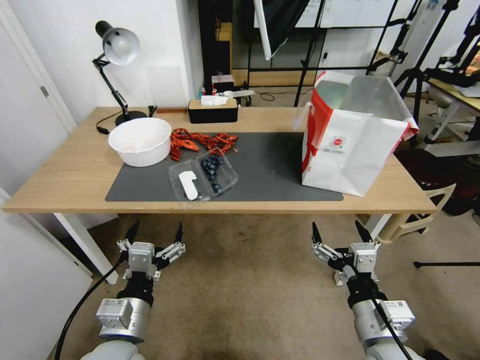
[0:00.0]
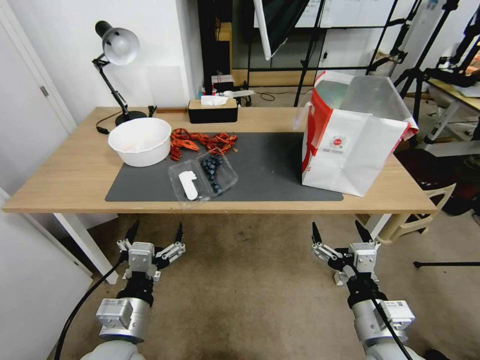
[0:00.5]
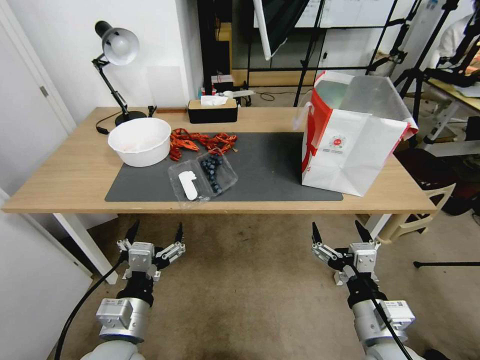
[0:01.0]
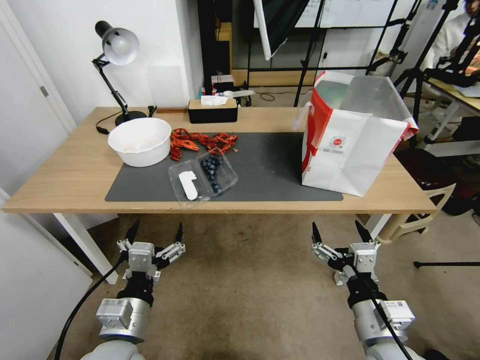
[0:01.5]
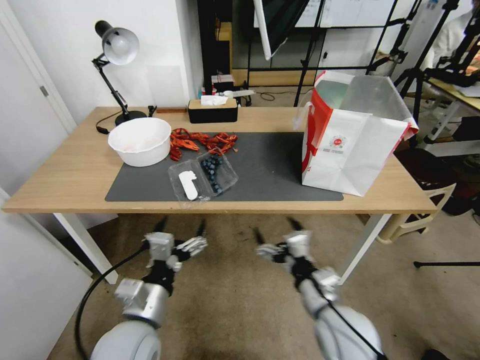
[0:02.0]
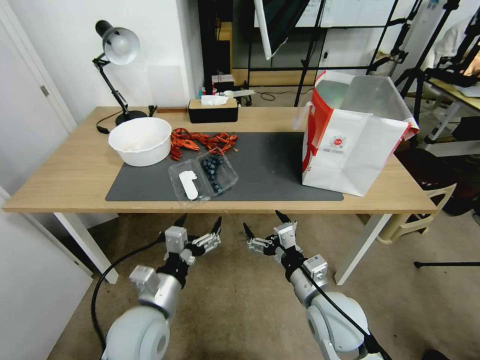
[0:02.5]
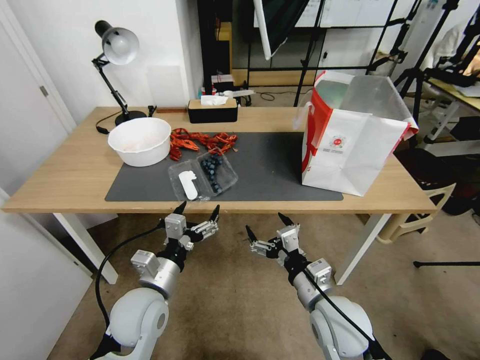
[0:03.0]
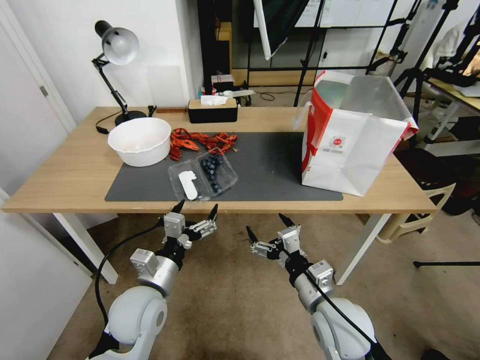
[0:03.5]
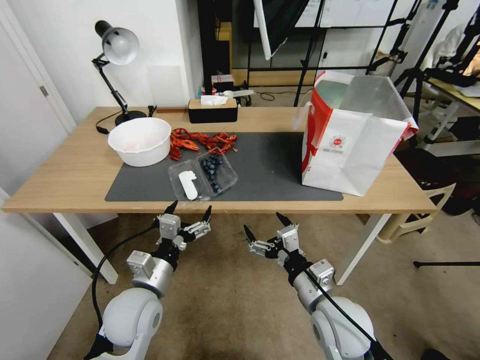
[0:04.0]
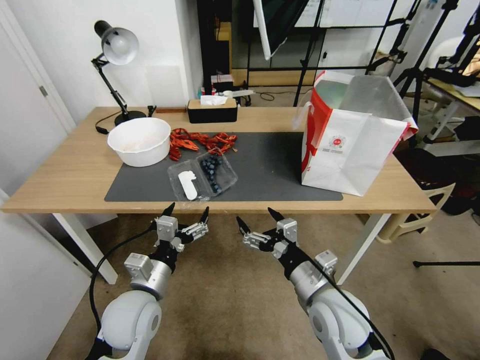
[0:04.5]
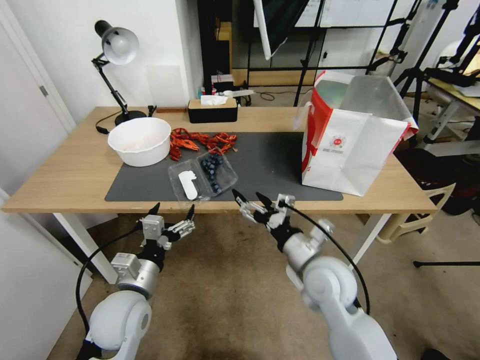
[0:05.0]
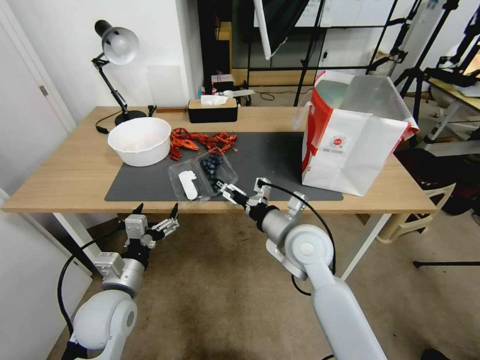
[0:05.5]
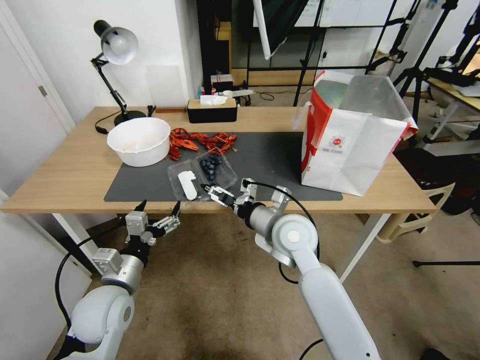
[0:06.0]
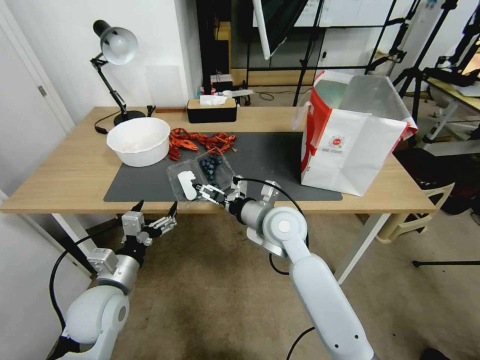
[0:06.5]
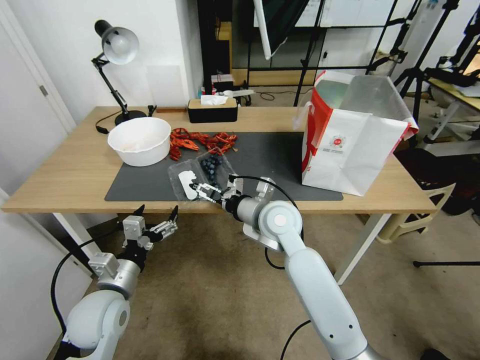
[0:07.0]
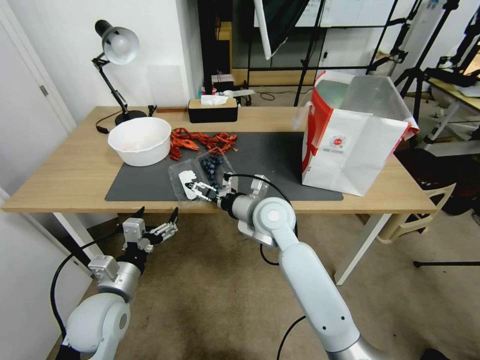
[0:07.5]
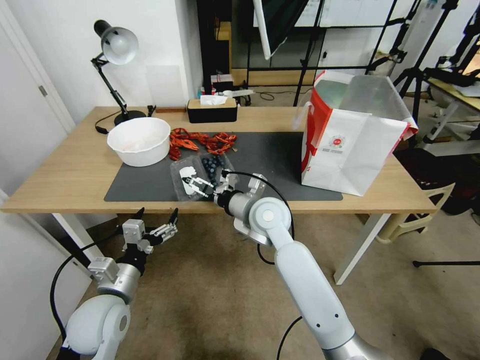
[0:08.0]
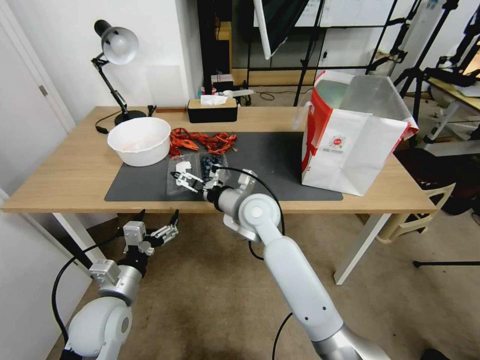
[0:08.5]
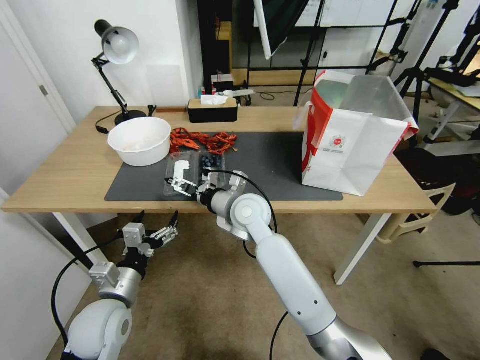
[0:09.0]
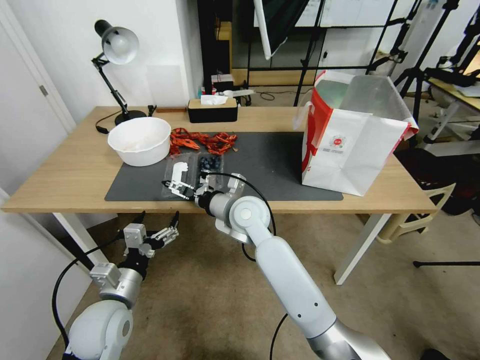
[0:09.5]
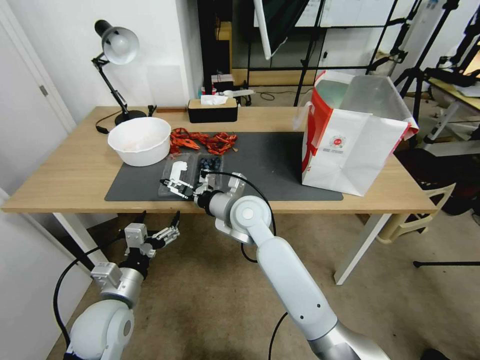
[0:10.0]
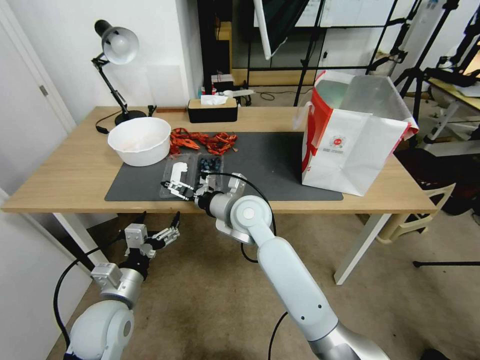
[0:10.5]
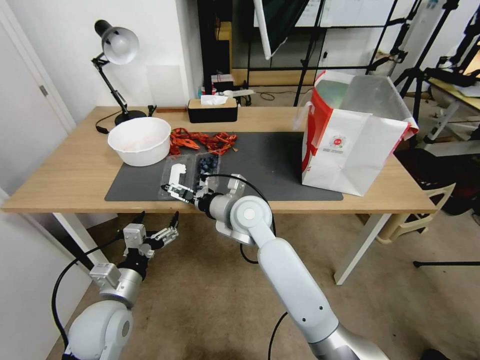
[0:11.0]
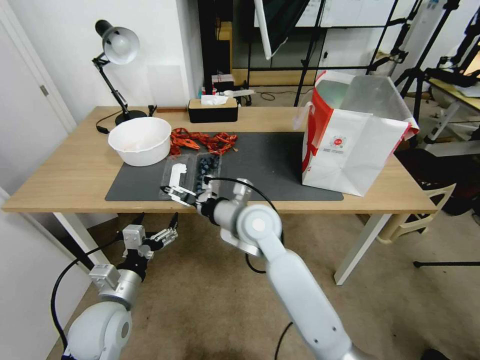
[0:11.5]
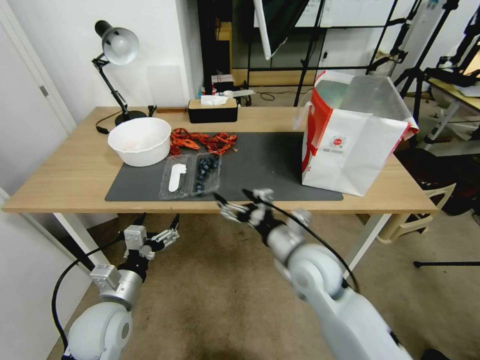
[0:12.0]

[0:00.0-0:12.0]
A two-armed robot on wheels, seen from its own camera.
Task of the whole recording: Close the takeout container lid, then place the container into the takeout bag.
0:02.0 to 0:04.0: The left gripper heads forward, covering approximately 5 cm.
0:04.0 to 0:06.0: The right gripper is displaced forward, to the left and upward by roughly 20 cm; the left gripper travels to the left by some 5 cm.
0:06.0 to 0:08.0: The right gripper moves some 5 cm.
0:08.0 to 0:10.0: The grippers move only a little.
0:10.0 to 0:12.0: The right gripper shifts about 20 cm to the right and backward.

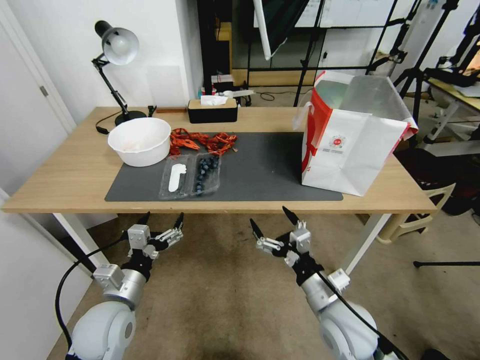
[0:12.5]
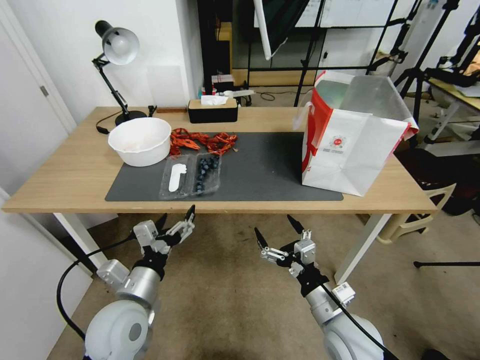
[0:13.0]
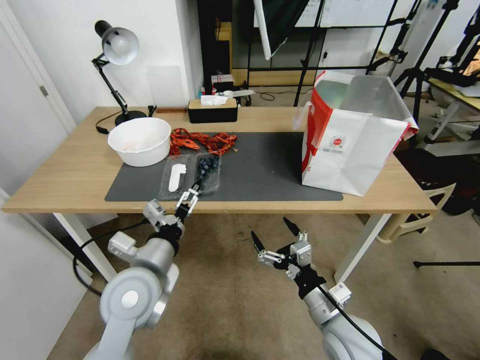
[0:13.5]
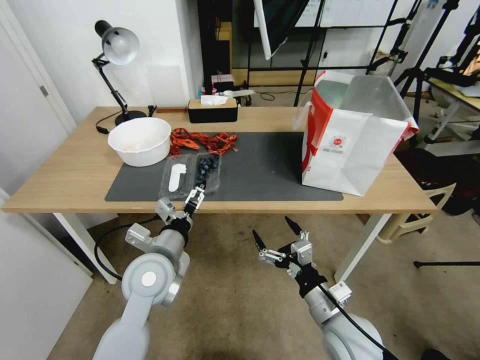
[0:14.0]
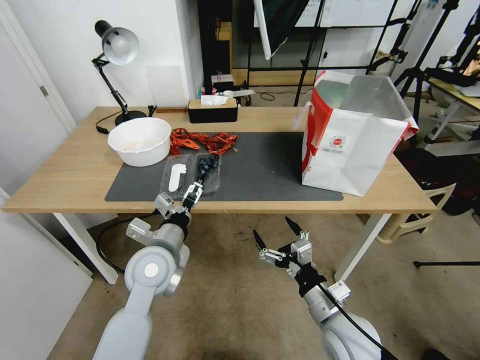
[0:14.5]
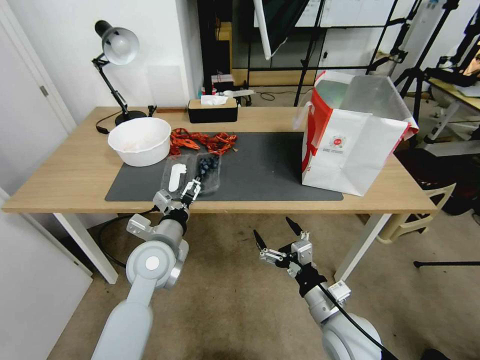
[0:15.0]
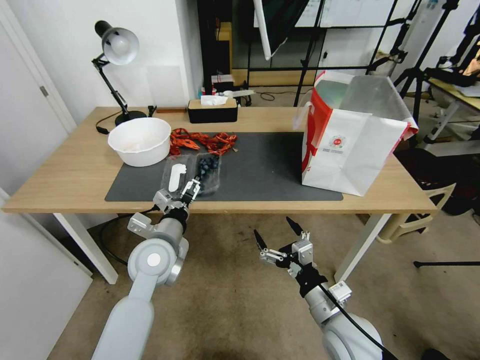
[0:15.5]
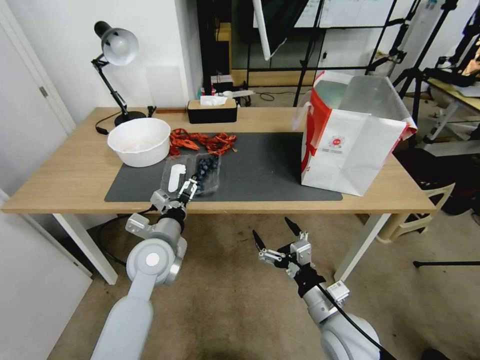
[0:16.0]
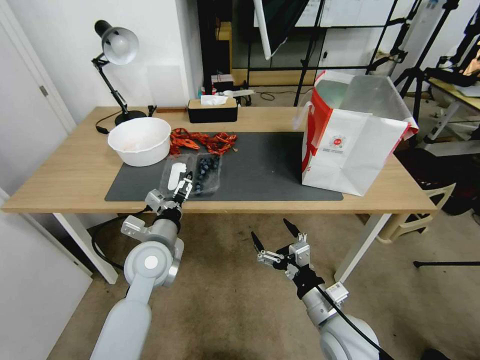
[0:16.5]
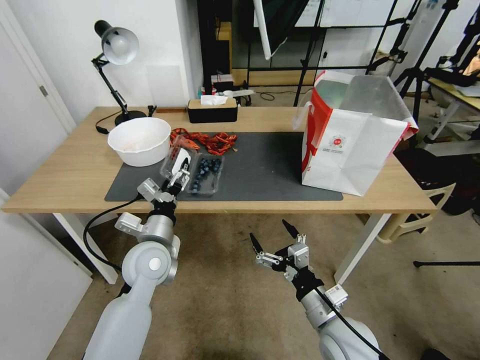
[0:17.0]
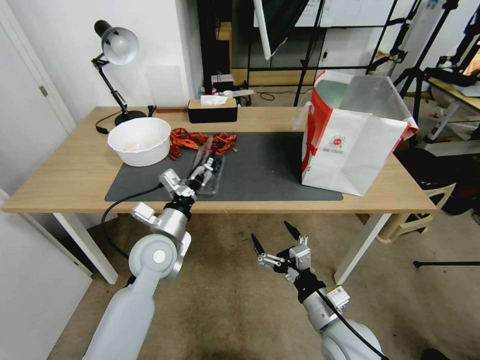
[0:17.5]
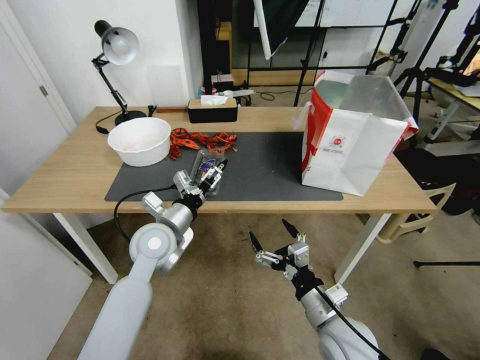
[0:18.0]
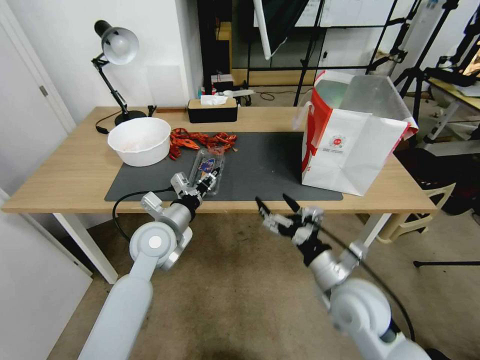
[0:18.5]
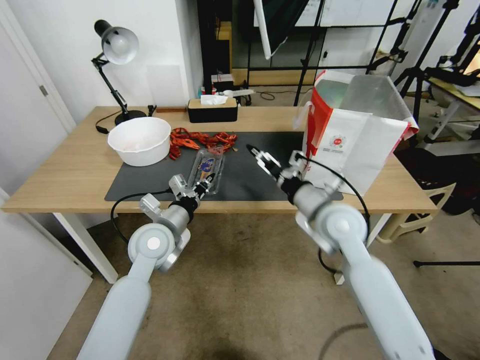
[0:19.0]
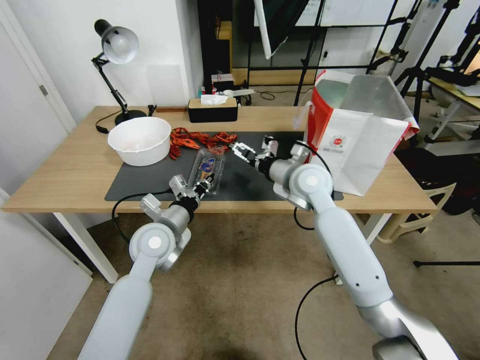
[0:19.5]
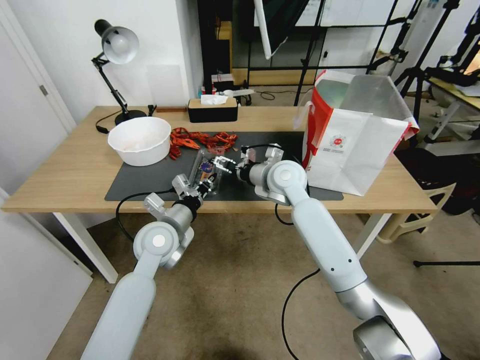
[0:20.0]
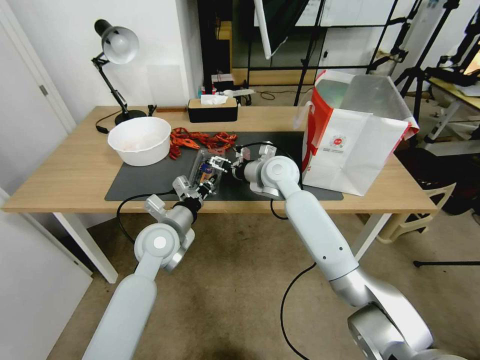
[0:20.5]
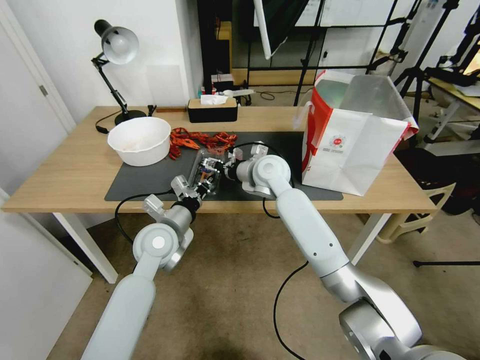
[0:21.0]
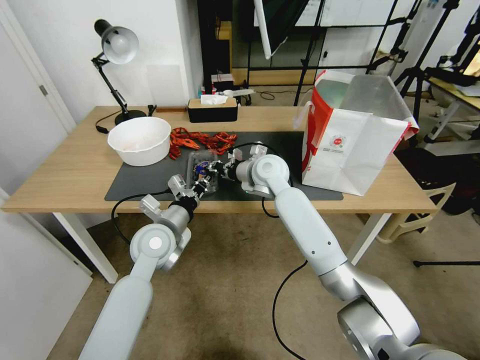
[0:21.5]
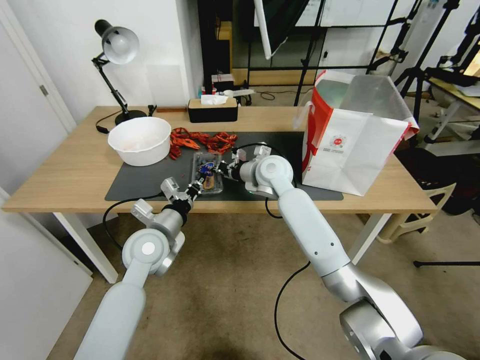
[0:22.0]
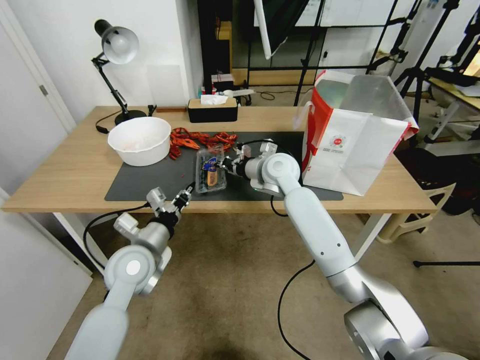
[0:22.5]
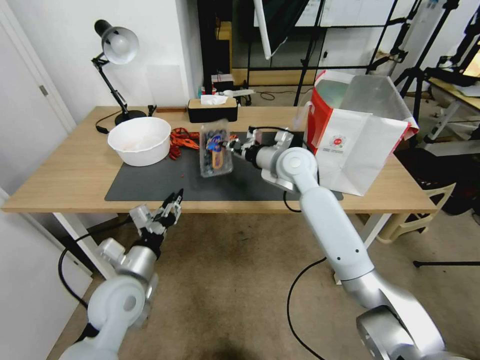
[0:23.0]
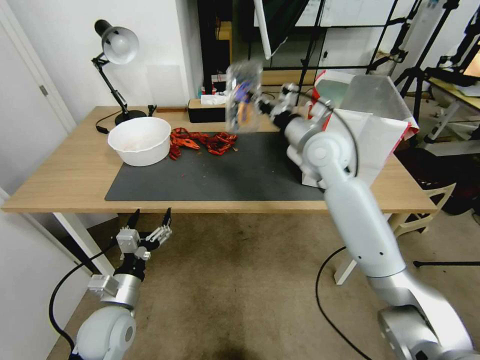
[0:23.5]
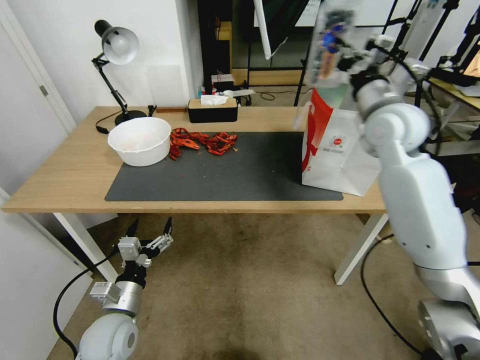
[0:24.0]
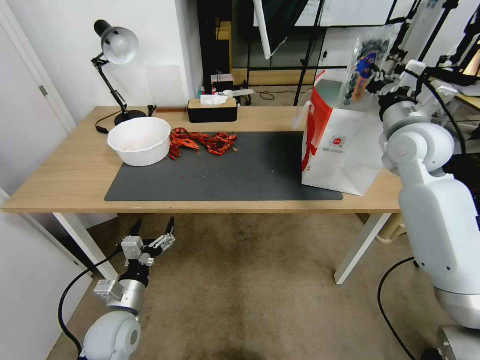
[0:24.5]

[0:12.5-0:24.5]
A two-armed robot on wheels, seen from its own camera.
Task of the whole recording: Close the takeout container lid, then place the container into the takeout bag.
0:12.5 to 0:14.5: The left gripper travels forward, to the right and upward by some 15 cm.
0:14.5 to 0:16.5: There are only small adjustments of the grippers.
0:16.5 to 0:18.5: The left gripper closes; the right gripper goes about 5 cm upward.
0:18.5 to 0:20.5: The right gripper travels forward and to the left by about 30 cm, while the left gripper closes up.
0:20.5 to 0:22.5: The left gripper is displaced backward by some 5 cm. The right gripper closes.
0:22.5 to 0:24.5: The right gripper moves to the right and upward, roughly 25 cm; the left gripper shifts roughly 15 cm downward and backward, and opens.

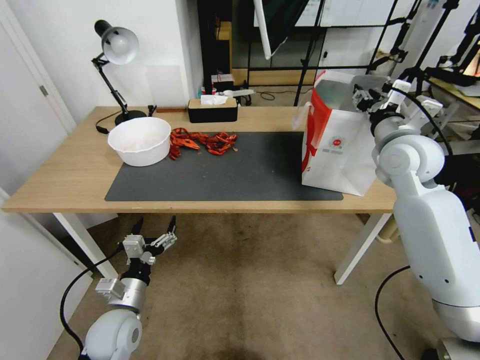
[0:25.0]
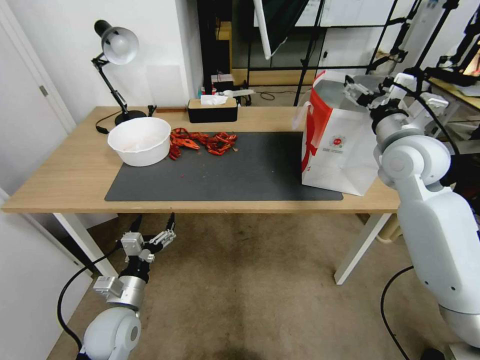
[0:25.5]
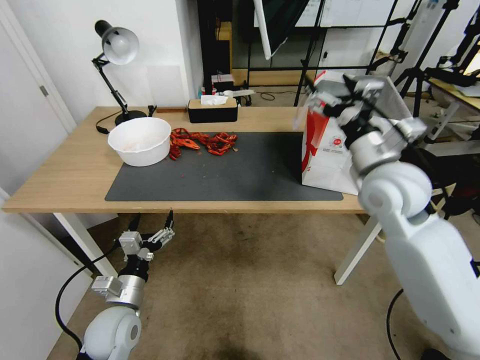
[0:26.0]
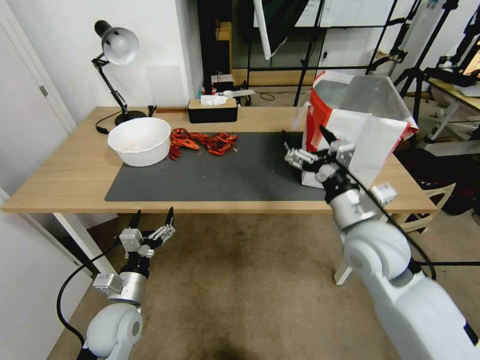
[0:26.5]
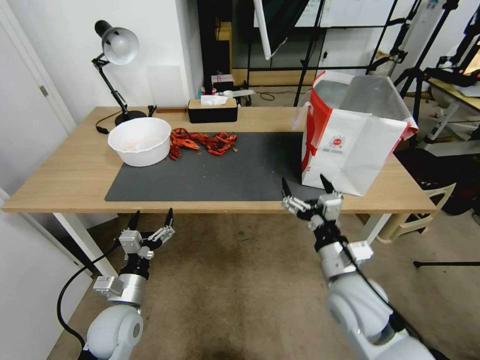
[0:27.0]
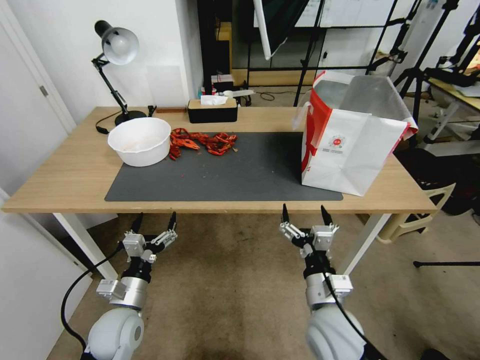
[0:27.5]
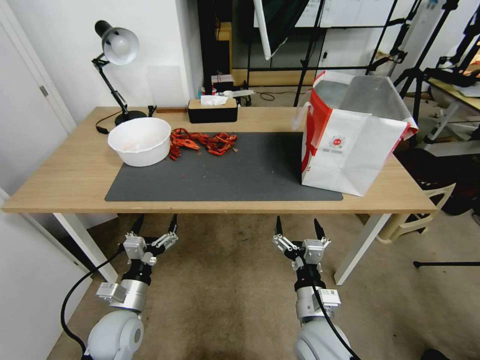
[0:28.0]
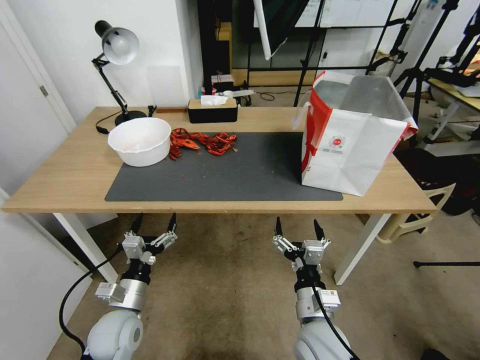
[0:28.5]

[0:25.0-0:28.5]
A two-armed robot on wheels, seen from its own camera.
Task of the whole recording: Close the takeout container lid, then place the container into the takeout bag.
0:25.0 to 0:27.0: The right gripper heads backward, downward and to the left, covering some 30 cm, and opens its fingers.
0:27.0 to 0:28.5: The right gripper heads downward, backward and to the left, covering some 15 cm.
